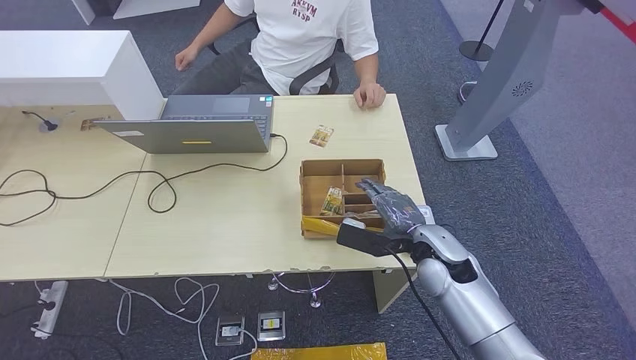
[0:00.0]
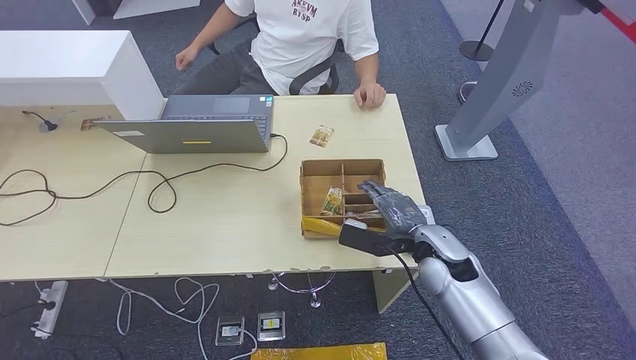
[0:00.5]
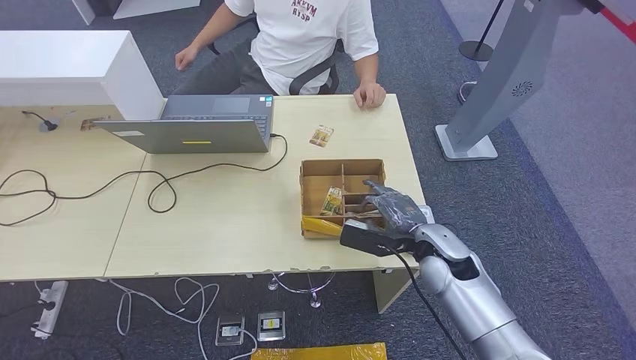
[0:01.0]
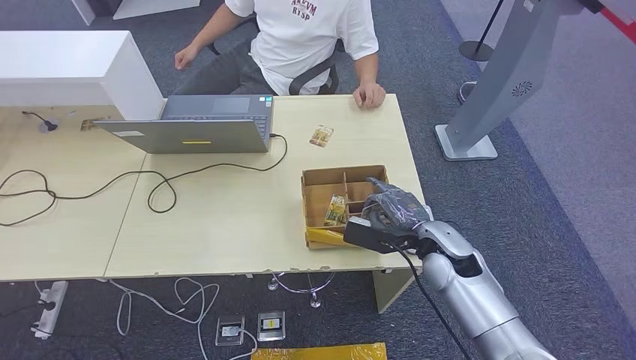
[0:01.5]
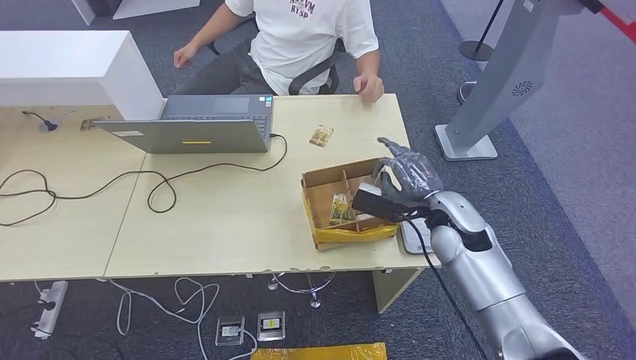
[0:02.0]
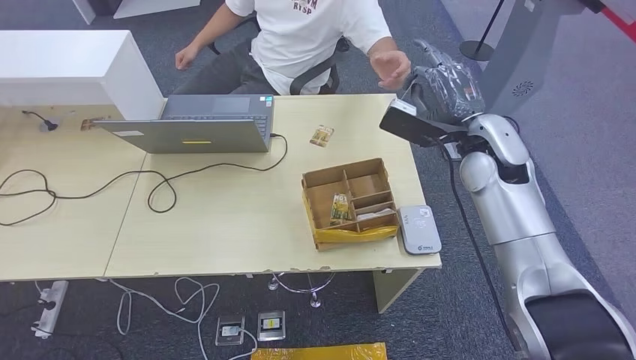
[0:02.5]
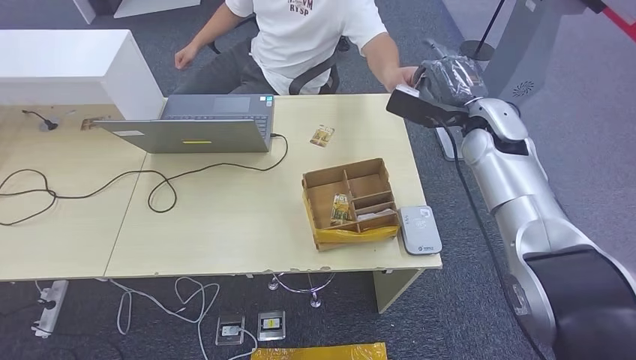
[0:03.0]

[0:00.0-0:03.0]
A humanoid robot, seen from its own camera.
Step, 0:00.0 to 0:02.0: Pick up the room key from the key card box.
Step, 0:02.5 to 0:03.0: Hand the room key to the person.
0:00.0 to 0:01.5: The hands make only small movements.
0:01.5 to 0:03.0: The right hand moves upward, forward and to the right, approximately 25 cm.
